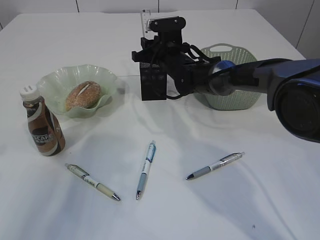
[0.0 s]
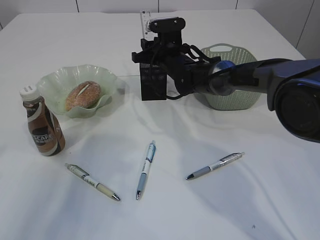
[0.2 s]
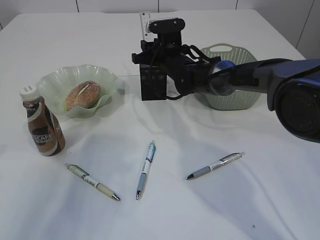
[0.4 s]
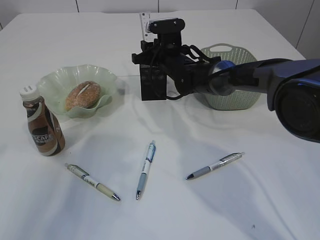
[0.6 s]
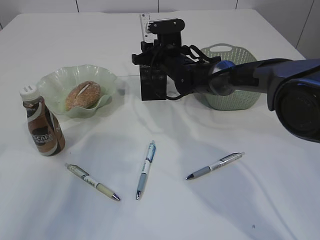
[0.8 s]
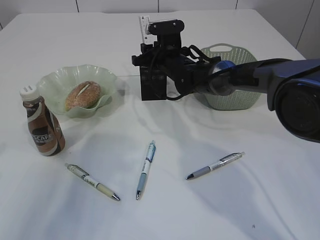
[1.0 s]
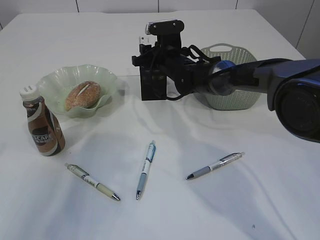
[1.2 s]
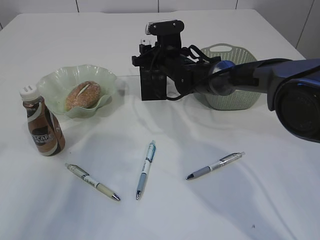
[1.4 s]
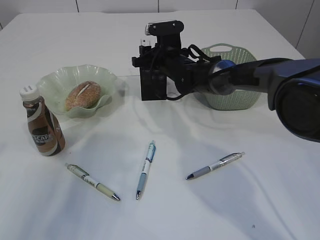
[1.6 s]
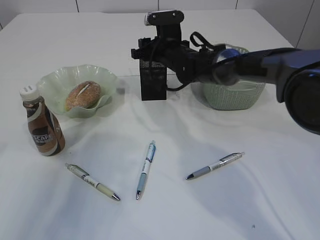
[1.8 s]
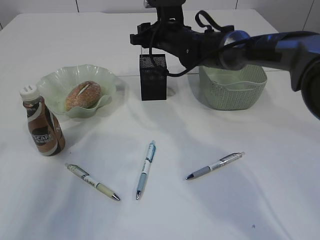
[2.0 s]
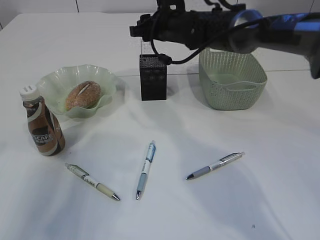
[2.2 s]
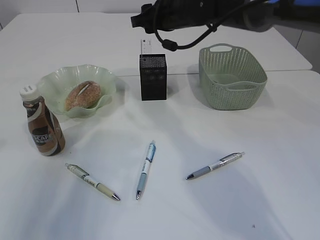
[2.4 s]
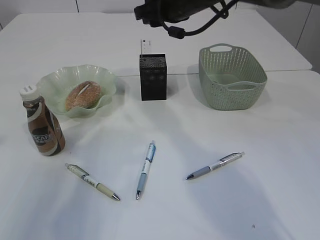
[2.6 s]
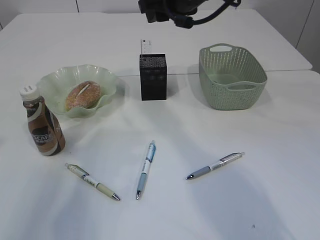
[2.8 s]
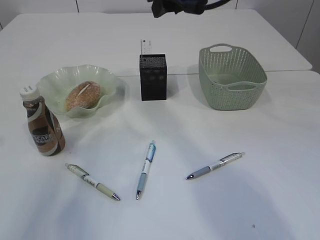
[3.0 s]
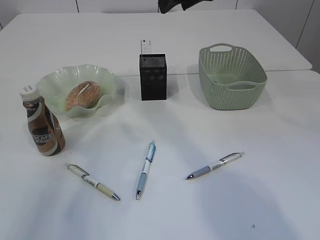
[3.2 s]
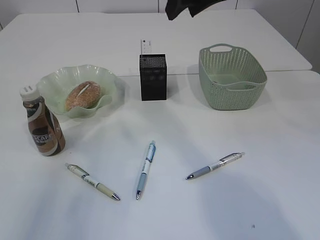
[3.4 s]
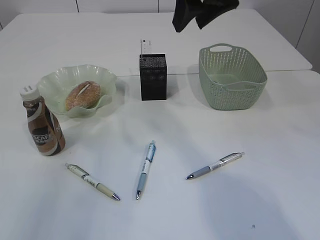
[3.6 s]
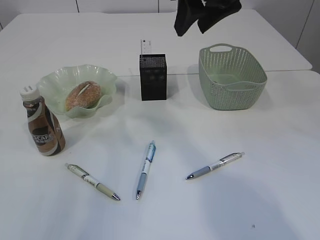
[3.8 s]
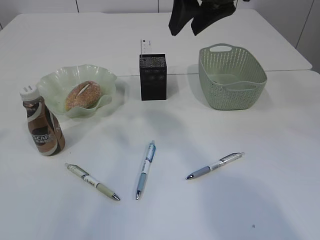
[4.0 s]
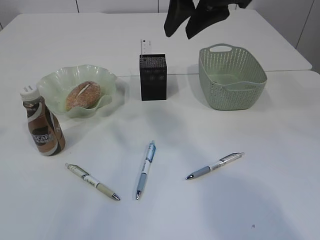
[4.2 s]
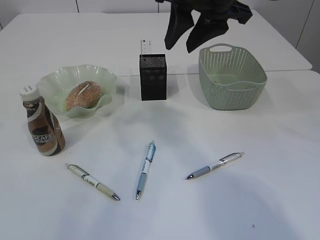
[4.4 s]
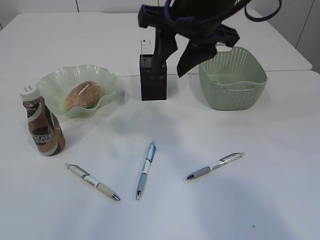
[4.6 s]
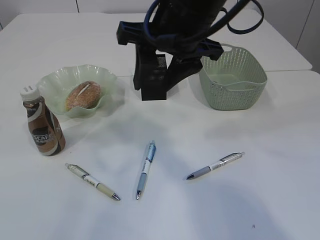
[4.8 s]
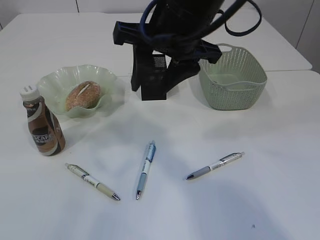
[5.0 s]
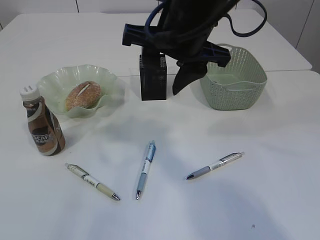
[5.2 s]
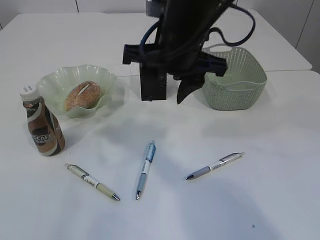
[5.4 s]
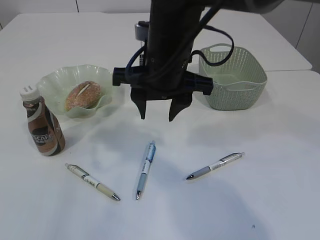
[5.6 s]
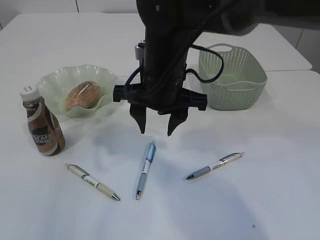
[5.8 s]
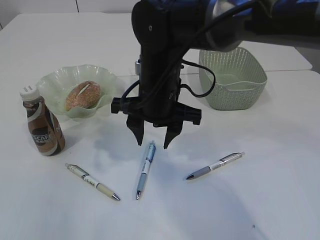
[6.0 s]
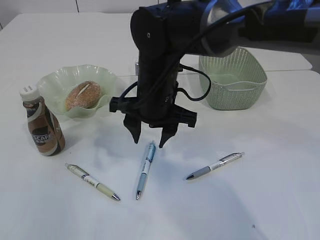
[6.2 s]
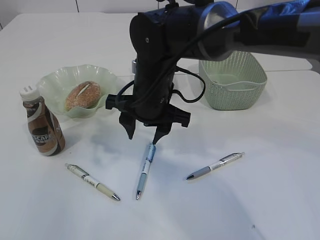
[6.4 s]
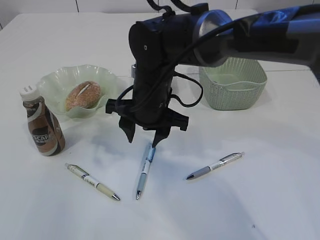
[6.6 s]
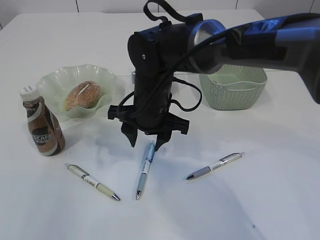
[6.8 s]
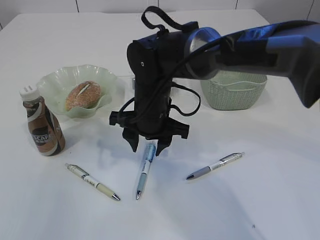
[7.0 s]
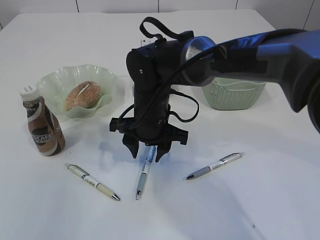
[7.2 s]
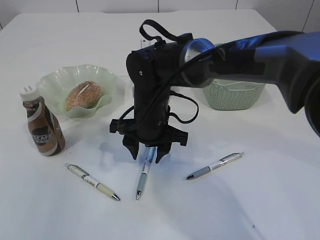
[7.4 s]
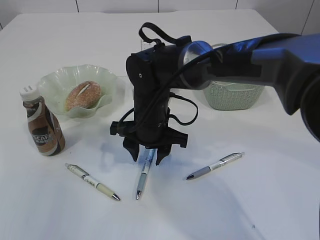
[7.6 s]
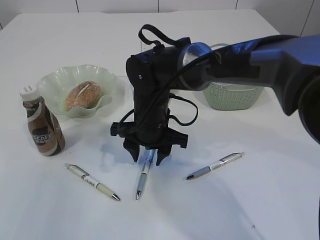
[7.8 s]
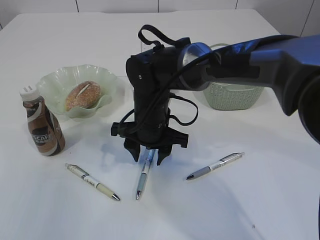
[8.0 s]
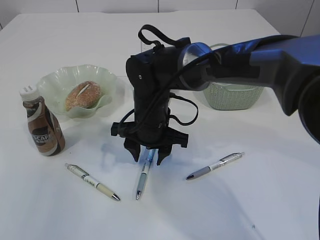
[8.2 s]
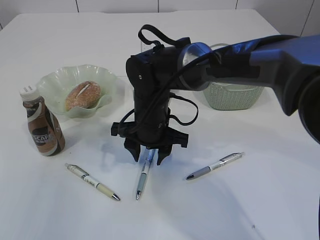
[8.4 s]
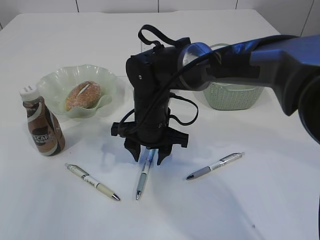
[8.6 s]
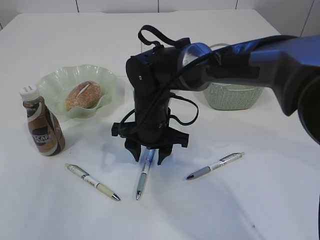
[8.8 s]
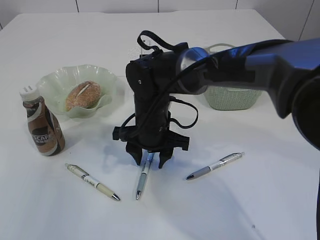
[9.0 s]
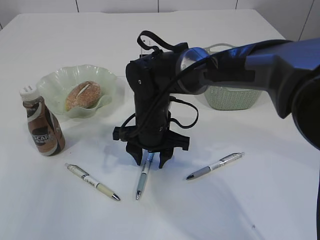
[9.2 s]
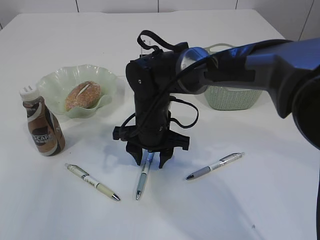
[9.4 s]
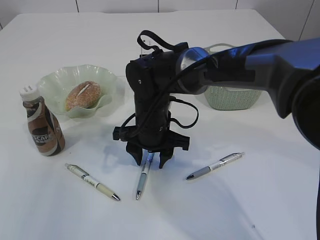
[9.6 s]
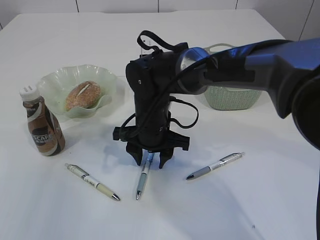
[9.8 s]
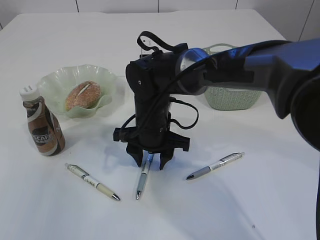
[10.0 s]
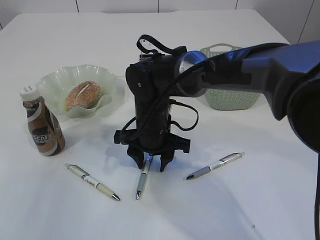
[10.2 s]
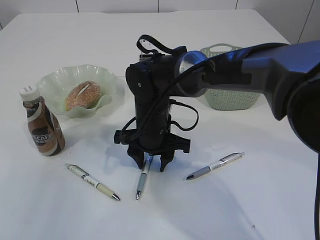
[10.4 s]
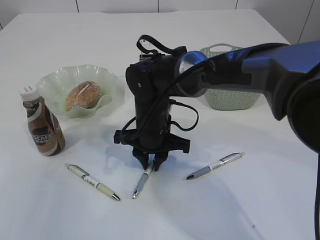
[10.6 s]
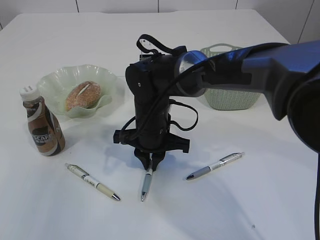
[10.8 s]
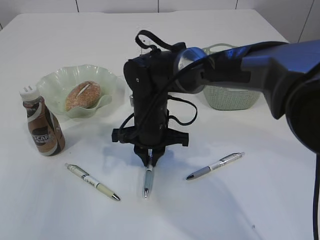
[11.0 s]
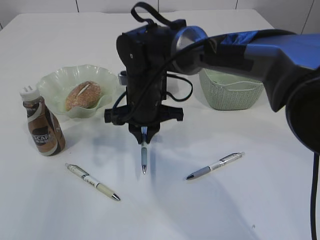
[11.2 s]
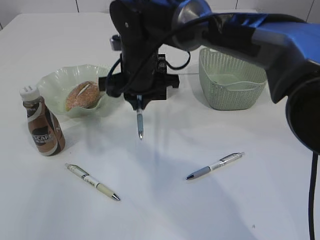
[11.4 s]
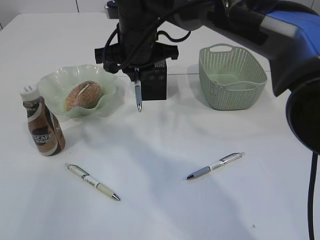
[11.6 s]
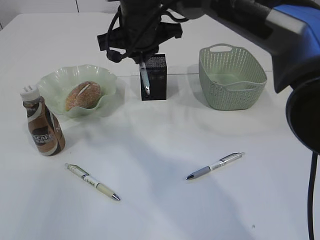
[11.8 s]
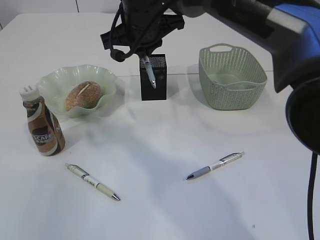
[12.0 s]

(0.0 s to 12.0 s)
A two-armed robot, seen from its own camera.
Step, 0.0 s - 2.2 s: Place the ruler into the pen holder.
Step, 2.4 s - 11.2 s: Pick up the pen with right arm.
0.0 s - 1.6 s: There are only small adjustments of the grippers.
1.6 s - 3.0 s: The right gripper goes about 25 cm upward and backward.
3.0 s - 4.4 s: The right gripper shifts about 5 cm backward, while the left gripper goes about 10 cm upward.
4.4 s - 6.0 s: The right gripper travels downward and to the left by approximately 15 cm.
6.0 s - 7.6 s: The right gripper travels downward by roughly 10 cm.
7.6 s - 9.0 s: The two grippers keep their place.
9.0 s - 10.4 s: Both grippers stay put.
10.4 s - 12.0 s: The right gripper travels upward by roughly 15 cm, and closes.

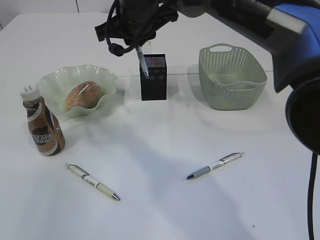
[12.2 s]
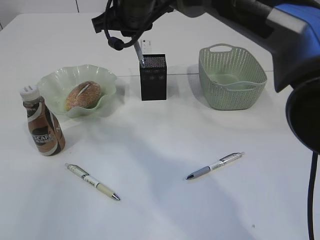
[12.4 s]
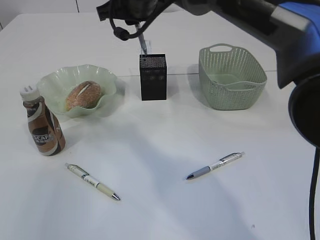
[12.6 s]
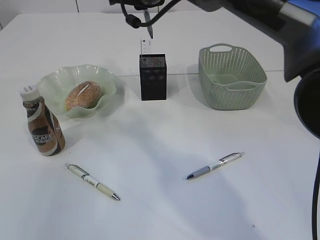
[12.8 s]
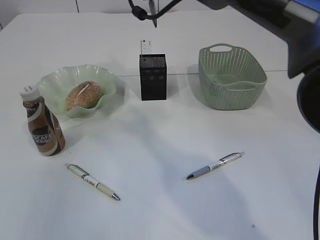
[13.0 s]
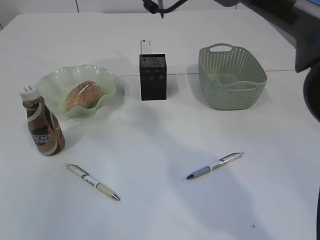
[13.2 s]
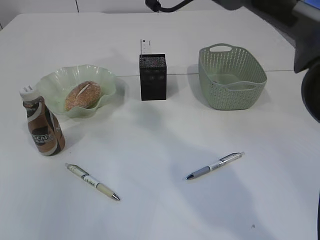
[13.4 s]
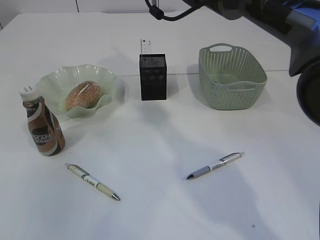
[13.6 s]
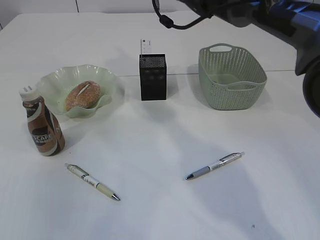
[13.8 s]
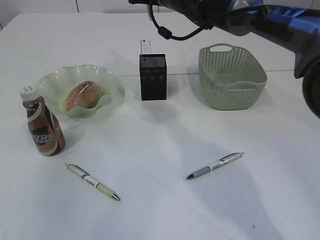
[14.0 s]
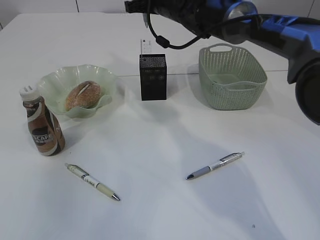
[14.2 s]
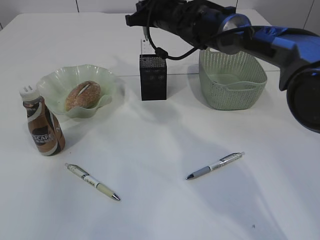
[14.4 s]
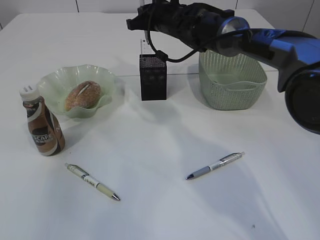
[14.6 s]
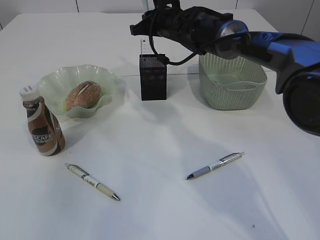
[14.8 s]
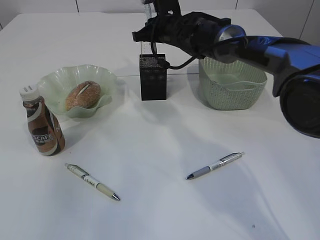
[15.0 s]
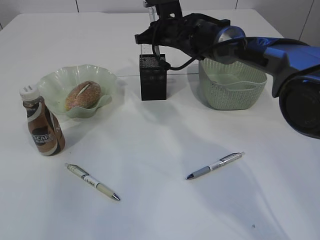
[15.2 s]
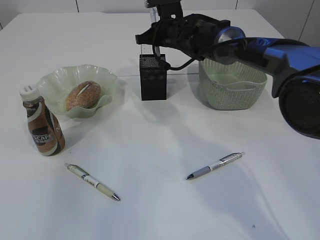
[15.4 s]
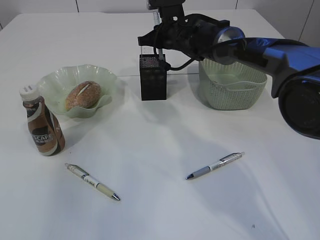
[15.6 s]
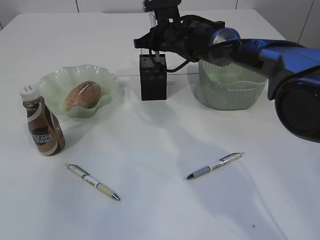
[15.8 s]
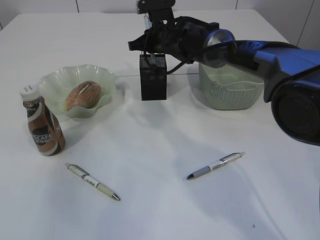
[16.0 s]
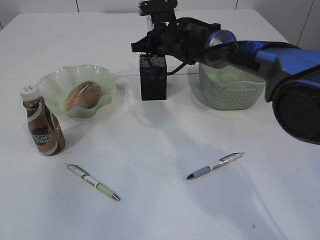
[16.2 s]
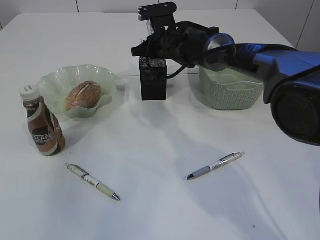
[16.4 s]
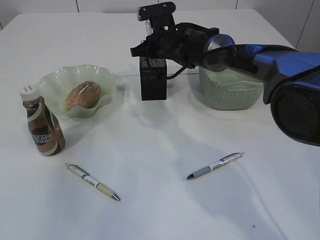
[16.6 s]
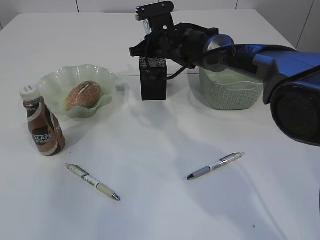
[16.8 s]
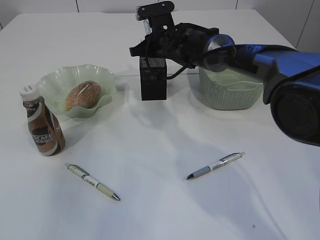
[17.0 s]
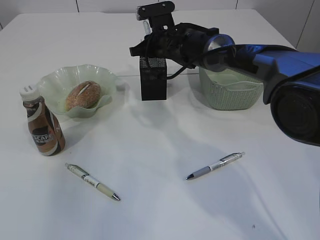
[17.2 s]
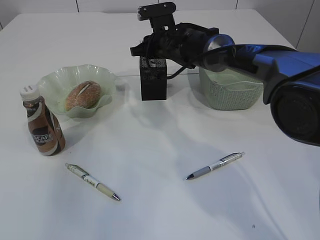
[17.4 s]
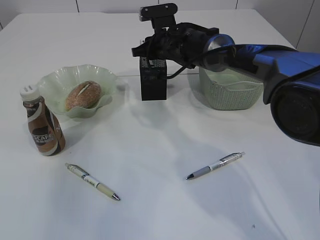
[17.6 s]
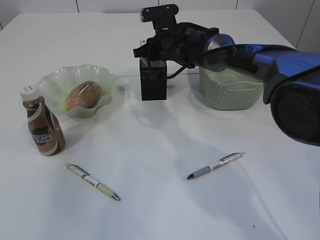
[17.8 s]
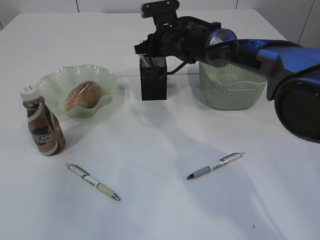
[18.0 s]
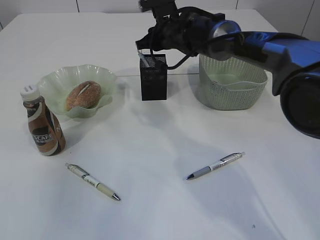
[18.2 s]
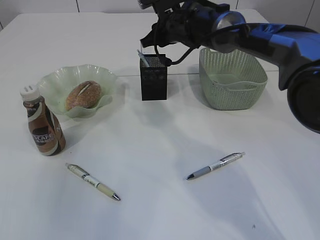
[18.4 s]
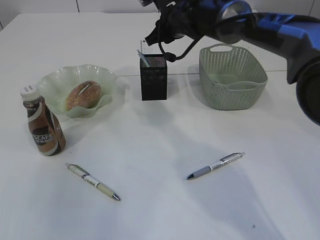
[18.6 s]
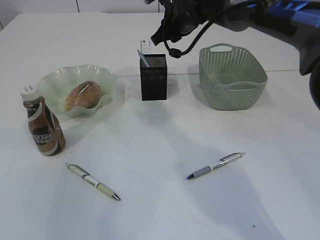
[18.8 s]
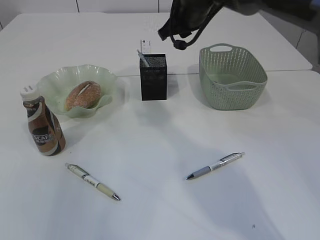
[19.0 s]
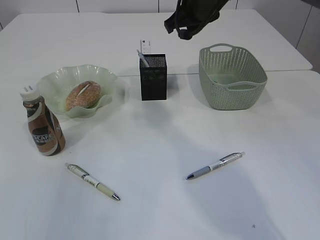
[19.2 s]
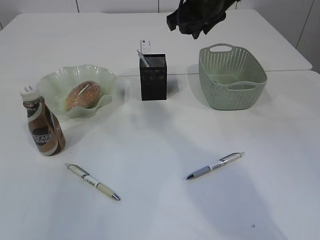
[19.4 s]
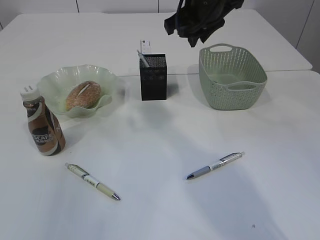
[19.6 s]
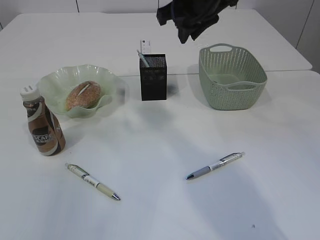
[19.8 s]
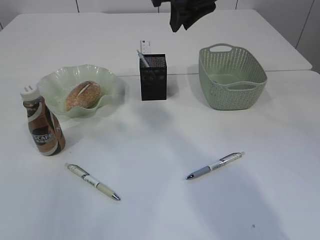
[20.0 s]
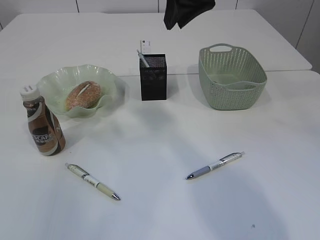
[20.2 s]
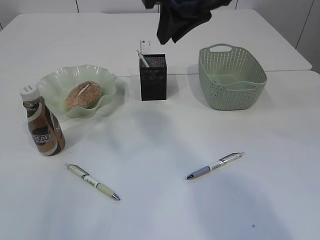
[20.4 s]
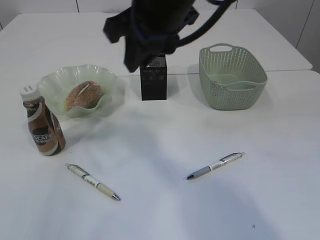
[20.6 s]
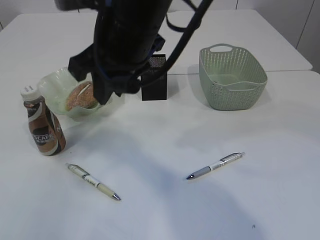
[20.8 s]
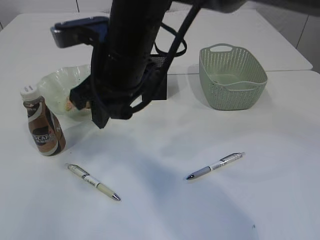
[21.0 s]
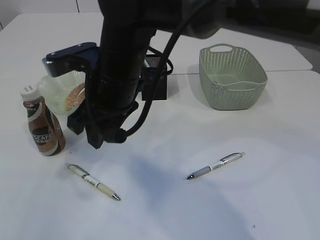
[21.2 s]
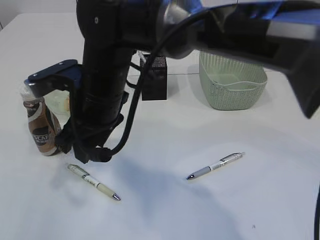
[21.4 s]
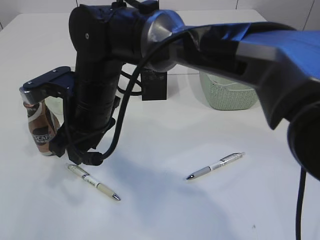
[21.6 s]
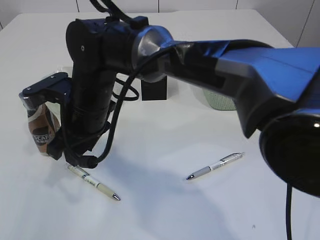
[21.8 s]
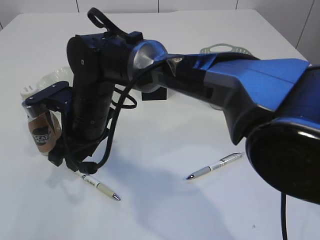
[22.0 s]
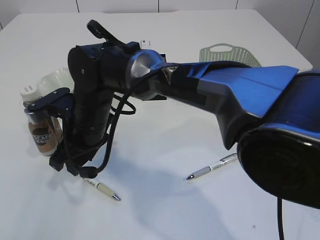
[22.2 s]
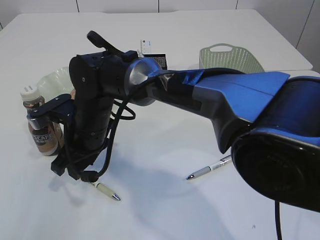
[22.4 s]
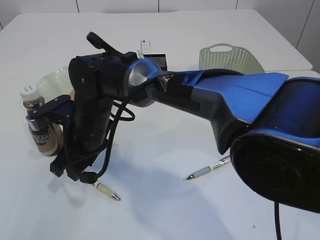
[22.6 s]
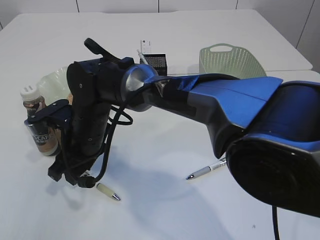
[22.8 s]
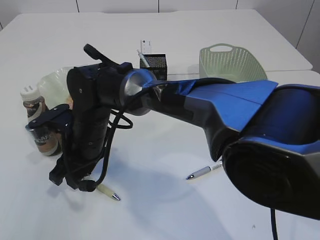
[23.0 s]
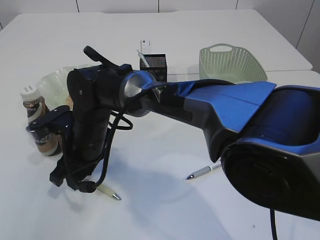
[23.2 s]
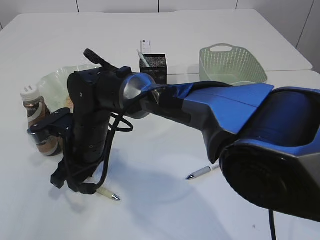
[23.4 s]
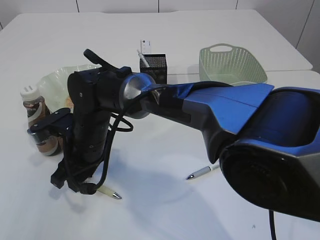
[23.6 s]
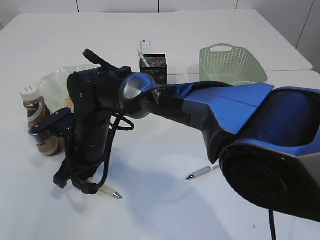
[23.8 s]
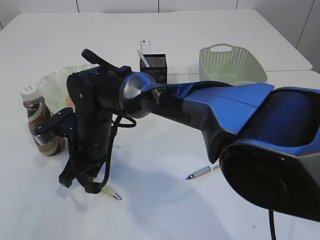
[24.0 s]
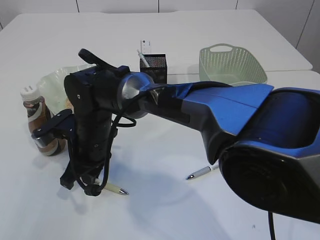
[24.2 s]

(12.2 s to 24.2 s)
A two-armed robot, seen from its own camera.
Step, 12.2 s - 18.4 s: Place the pen into the pen holder.
12.2 s - 13.8 s: The right gripper travels forward and to the right by approximately 15 cm.
13.8 s - 15.2 s: The right gripper heads downward, covering roughly 10 cm.
15.2 s - 18.2 s: There are only small adjustments of the grippers.
18.2 s - 19.8 s: The right gripper goes approximately 15 cm upward and backward.
19.8 s - 21.2 s: The right gripper moves to the left, backward and downward, approximately 20 cm.
21.2 s - 22.6 s: The right gripper travels downward and to the left by some 15 cm.
22.6 s - 24.2 s: The right gripper closes up.
